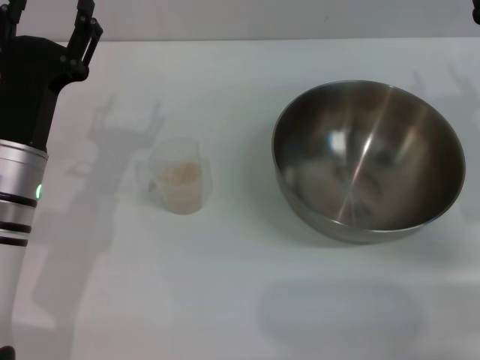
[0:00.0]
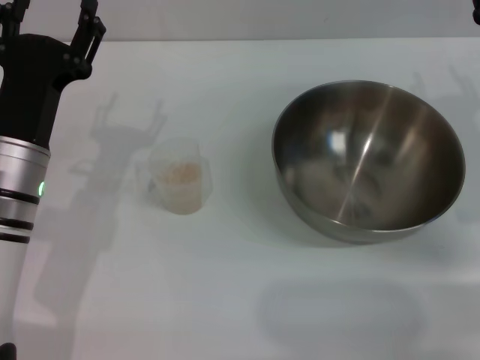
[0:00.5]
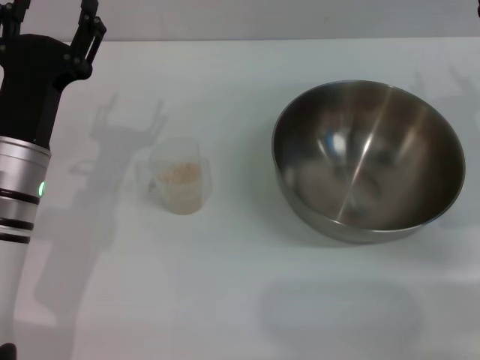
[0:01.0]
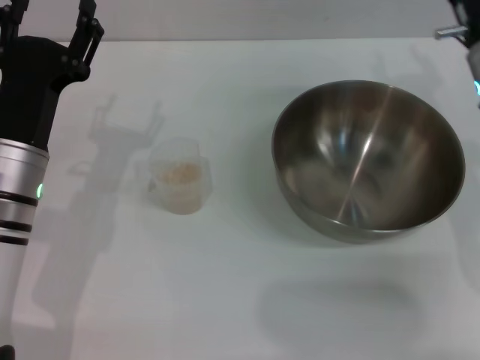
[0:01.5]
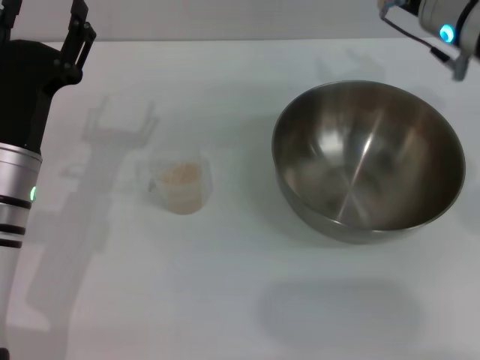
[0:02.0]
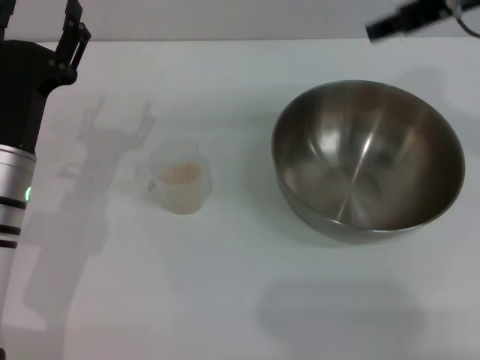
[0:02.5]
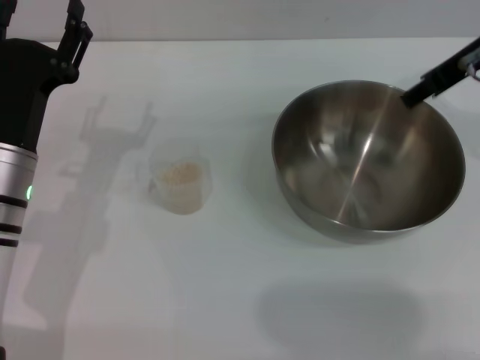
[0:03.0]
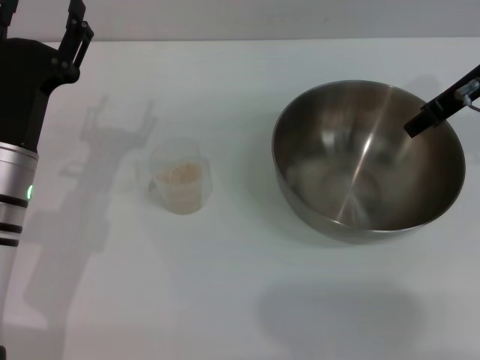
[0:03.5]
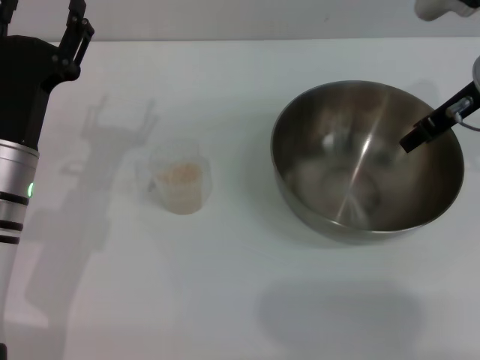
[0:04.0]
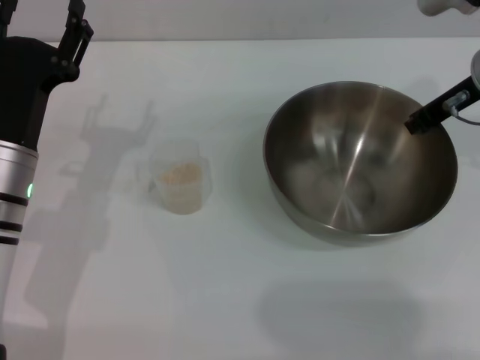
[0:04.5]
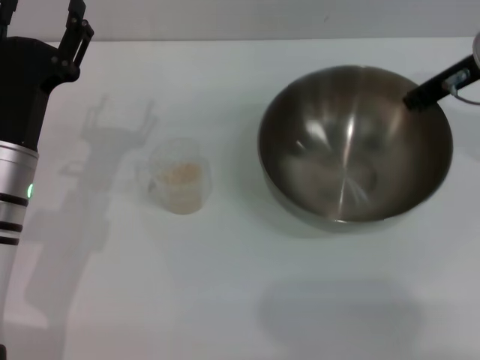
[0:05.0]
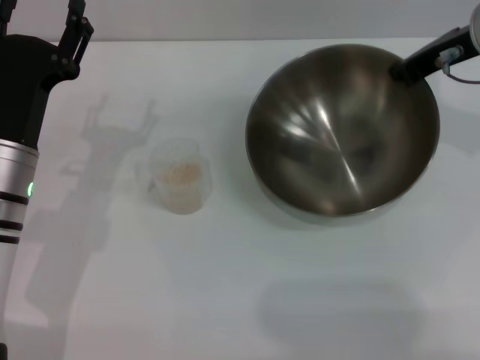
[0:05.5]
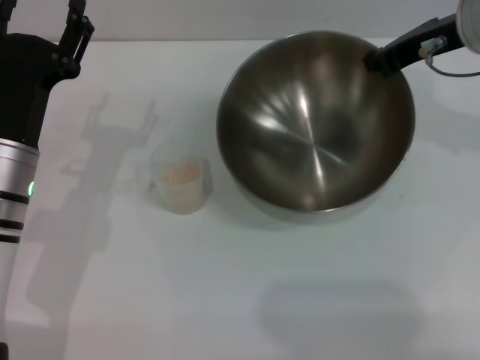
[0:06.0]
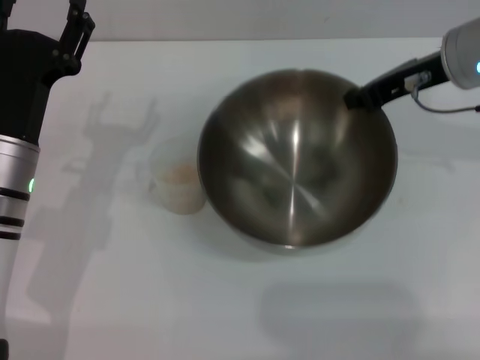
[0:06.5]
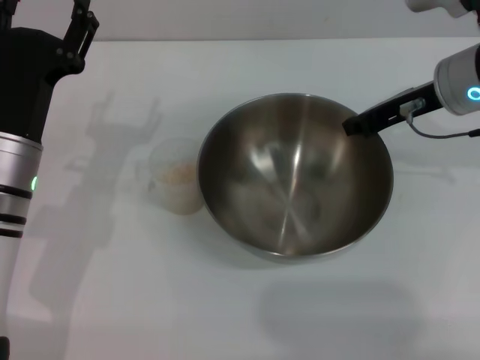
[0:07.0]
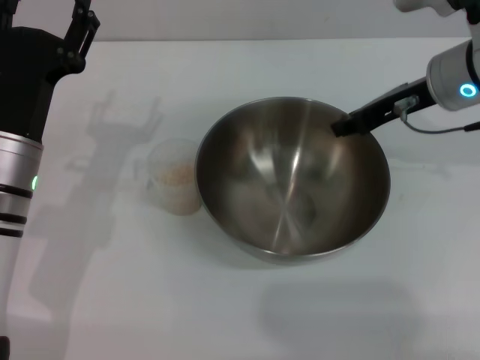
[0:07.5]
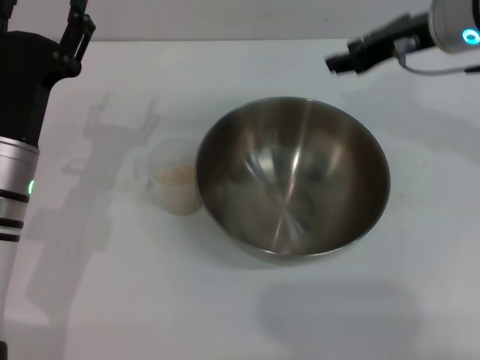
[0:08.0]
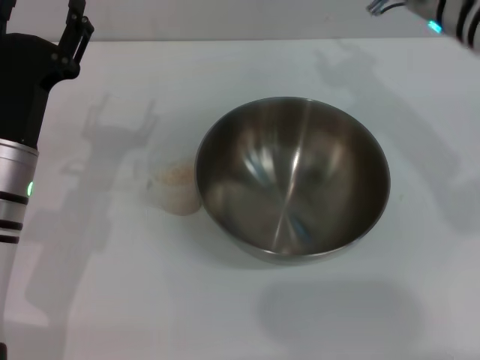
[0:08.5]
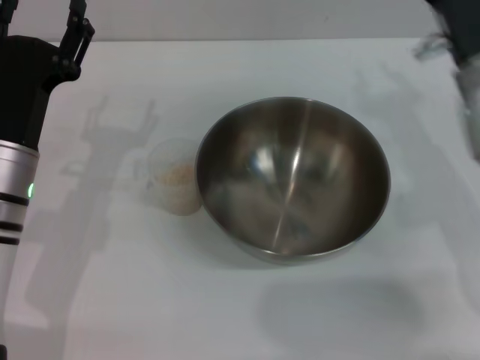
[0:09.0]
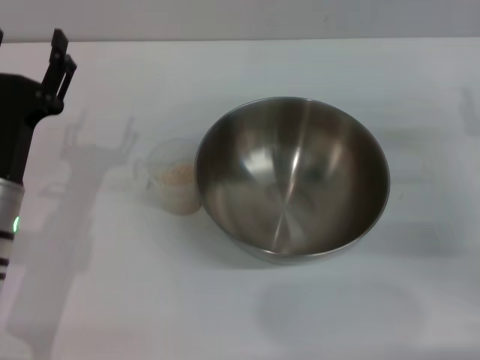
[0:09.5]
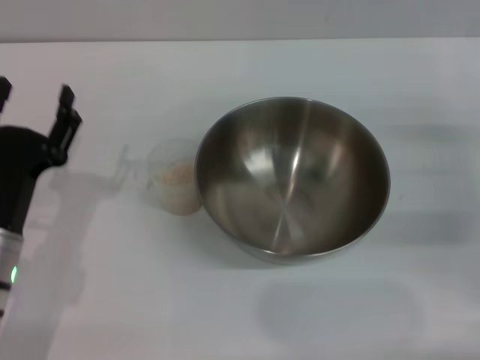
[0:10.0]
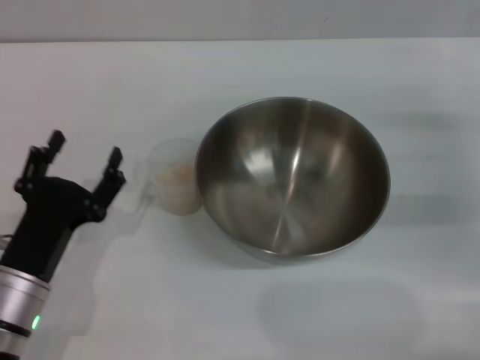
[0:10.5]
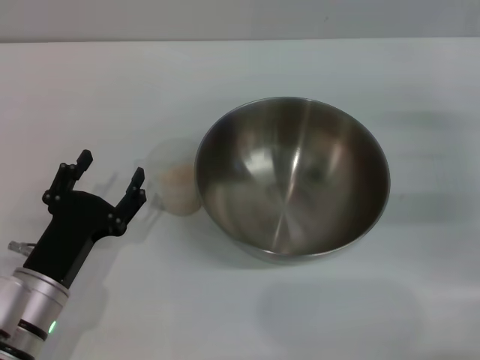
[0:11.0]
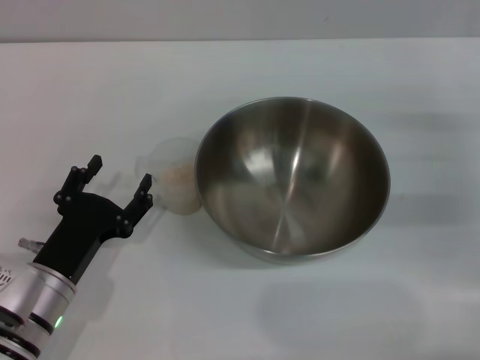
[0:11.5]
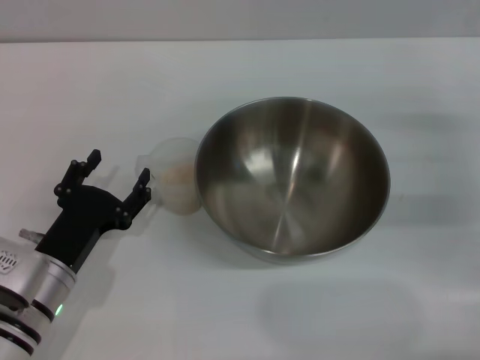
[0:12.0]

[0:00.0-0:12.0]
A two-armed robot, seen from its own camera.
Task of the whole recording: Place the bowl in the middle of the table with one hand and pour the rice from the grain cup into it with the other hand.
Step, 0:00.0 to 0:05.5: Pick up the bowl with the right gripper.
Step, 0:06.0 to 0:07.5: Place the bowl in the center of view with the right gripper.
0:00.0 to 0:02.0: The right gripper travels upward, to the left and forward by some 15 cm.
0:02.0 to 0:04.0: The right gripper moves to the right, about 5 cm.
0:04.0 to 0:06.0: The right gripper closes up.
0:06.0 to 0:08.0: The right gripper opens up.
0:08.0 to 0:10.0: The right gripper is displaced downward, to the right and backward by about 25 cm, and opens up. The left gripper is displaced backward by approximately 5 cm.

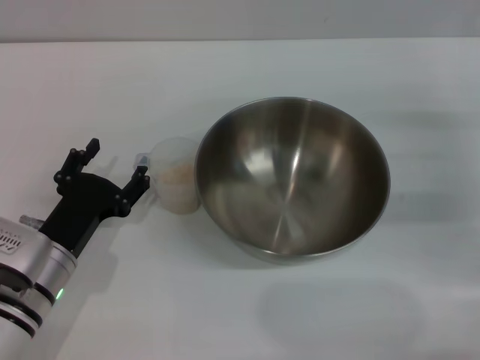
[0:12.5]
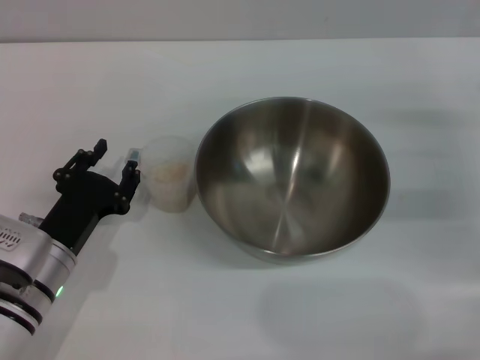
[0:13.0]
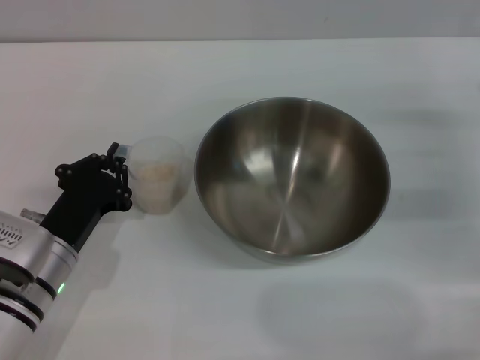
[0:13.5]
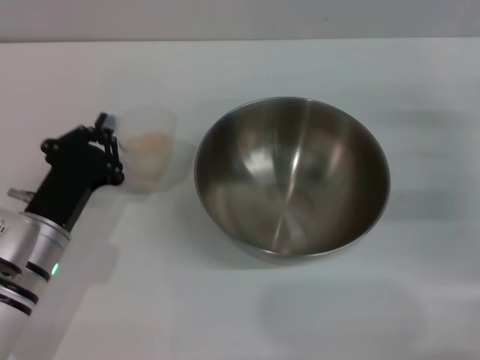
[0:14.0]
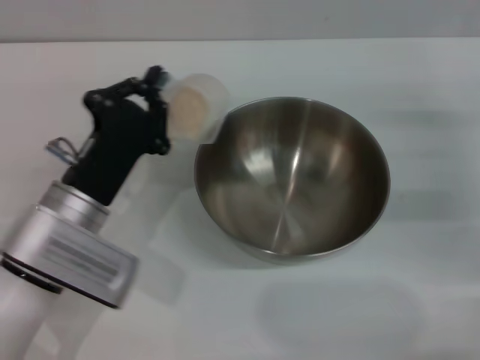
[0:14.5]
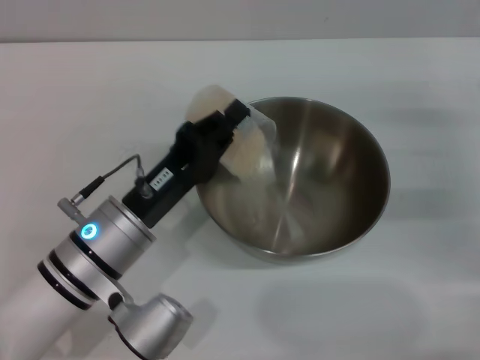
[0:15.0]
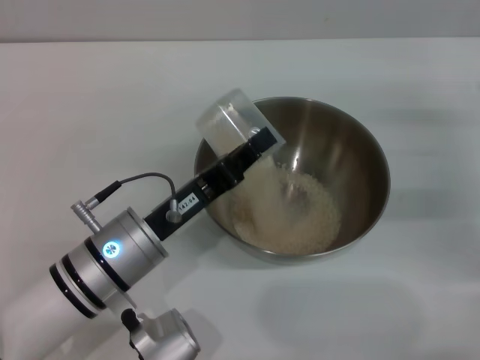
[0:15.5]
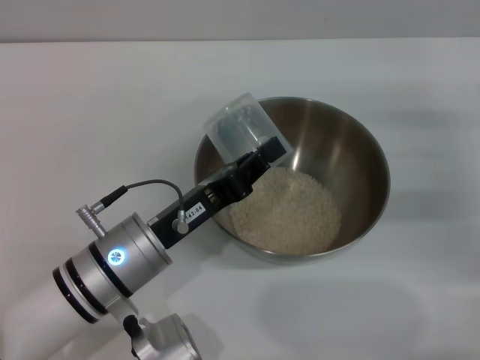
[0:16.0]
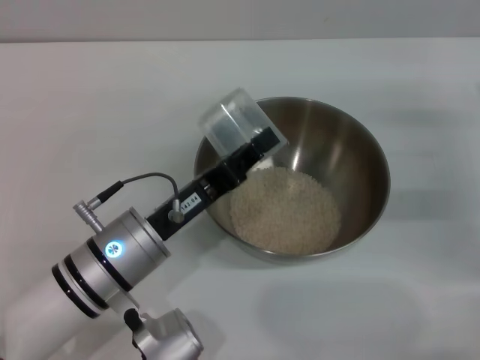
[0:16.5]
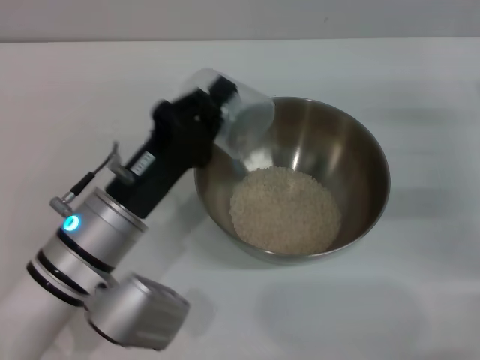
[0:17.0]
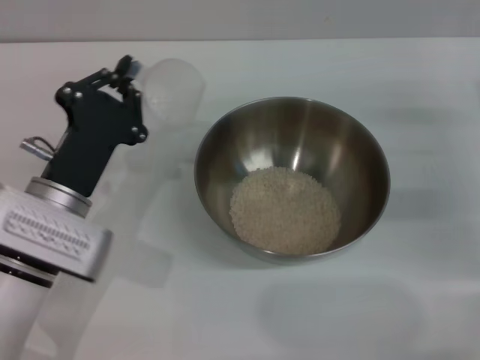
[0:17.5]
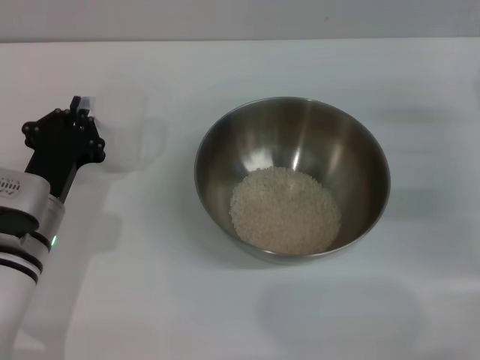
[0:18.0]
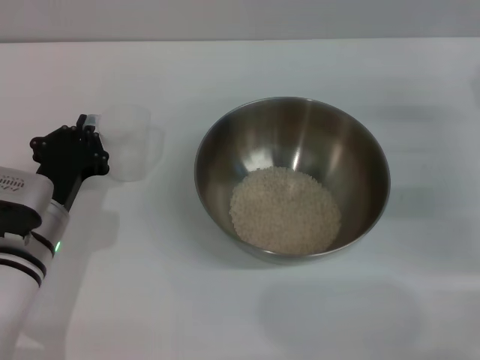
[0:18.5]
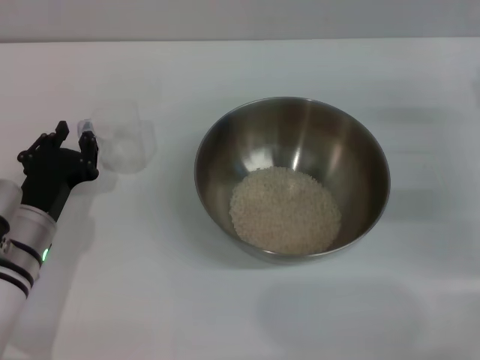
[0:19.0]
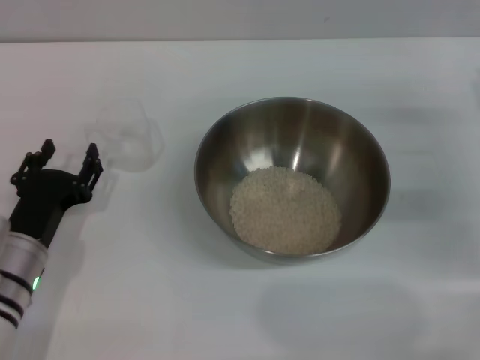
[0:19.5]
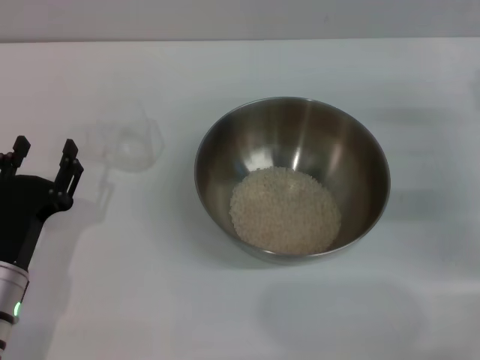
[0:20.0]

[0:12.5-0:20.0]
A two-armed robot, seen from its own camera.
Task of the whole recording: Place the bowl in the middle of the table with one hand and pour the rice from the grain cup into it with the other hand.
Step, 0:14.5 to 0:16.5: Pour the rice from the cup into the bowl with the left gripper.
Step, 0:17.0 to 0:19.5: Place the cup on the table with the left gripper.
0:12.5 to 0:14.5: The left gripper is displaced upward by approximately 5 cm, and closes up.
0:16.5 to 0:18.0: The left gripper travels to the left by roughly 10 cm.
0:18.0 to 0:20.0: The left gripper is displaced backward by roughly 5 cm, and opens up.
